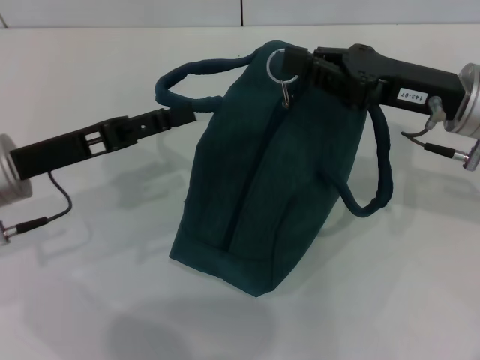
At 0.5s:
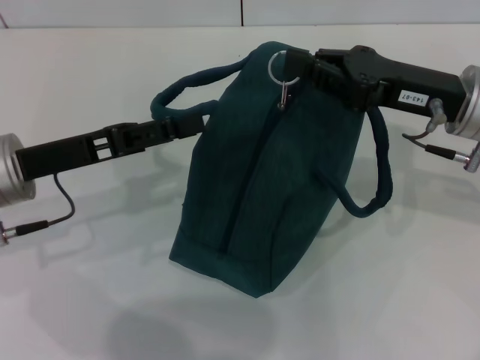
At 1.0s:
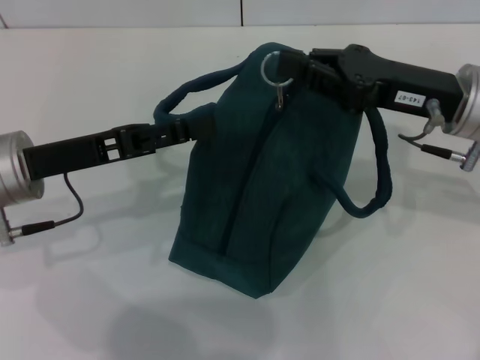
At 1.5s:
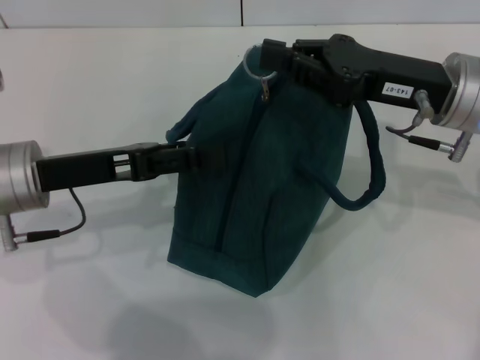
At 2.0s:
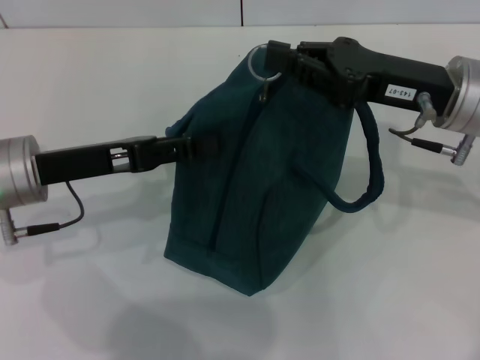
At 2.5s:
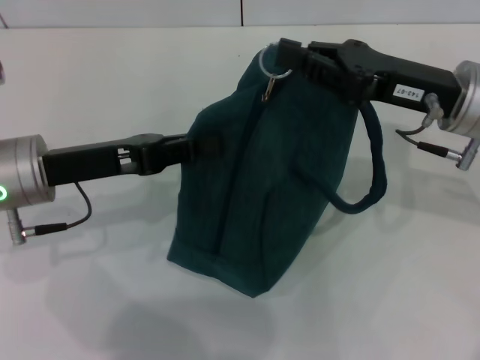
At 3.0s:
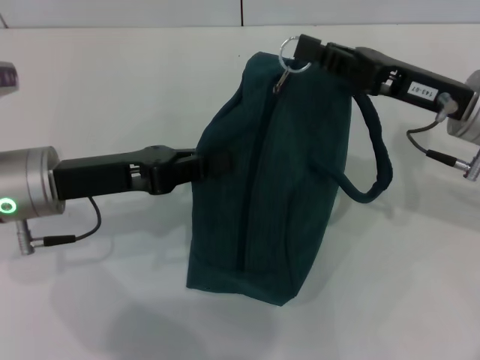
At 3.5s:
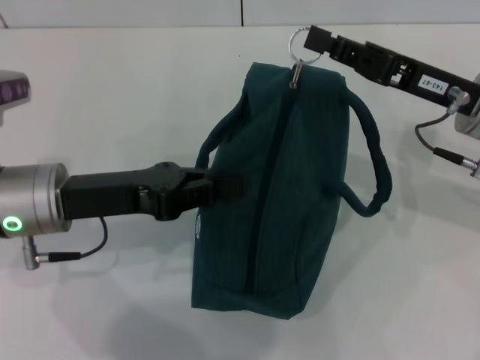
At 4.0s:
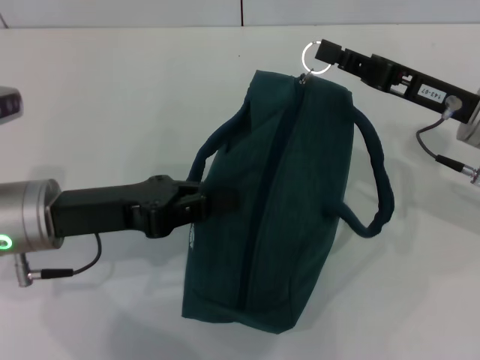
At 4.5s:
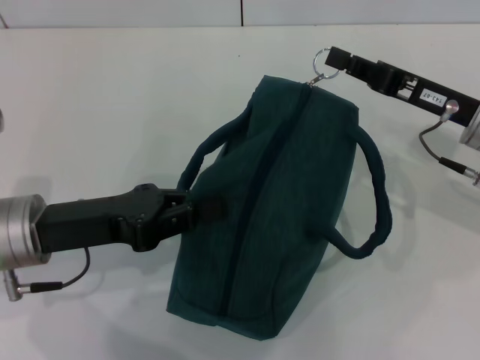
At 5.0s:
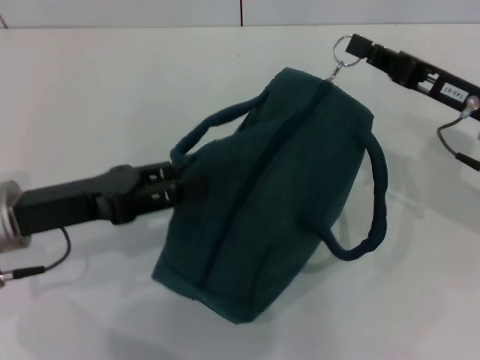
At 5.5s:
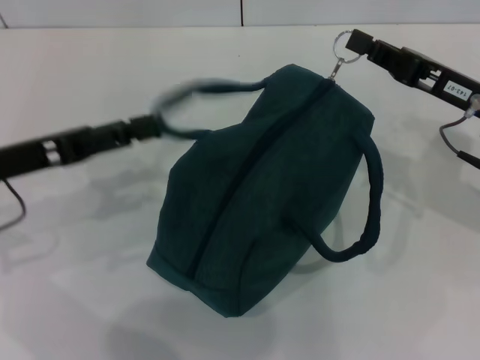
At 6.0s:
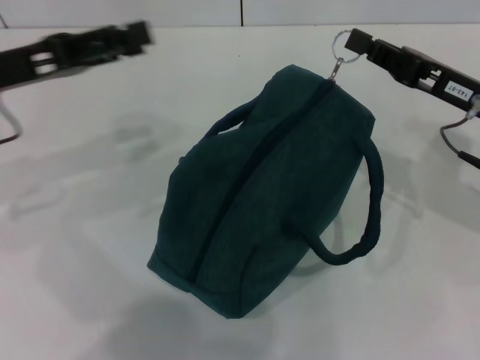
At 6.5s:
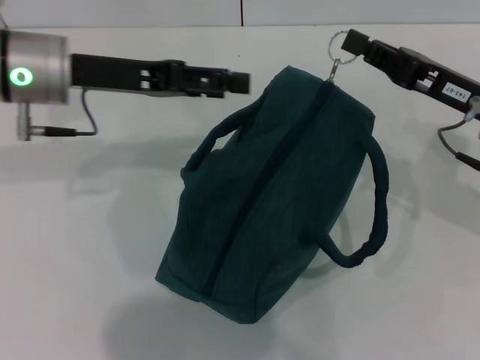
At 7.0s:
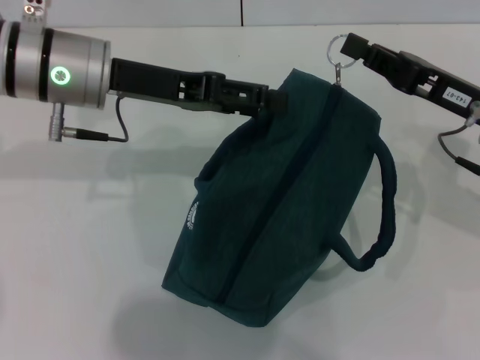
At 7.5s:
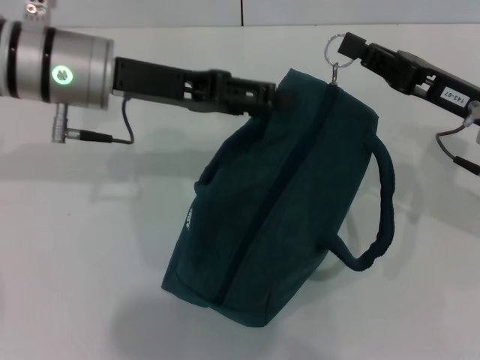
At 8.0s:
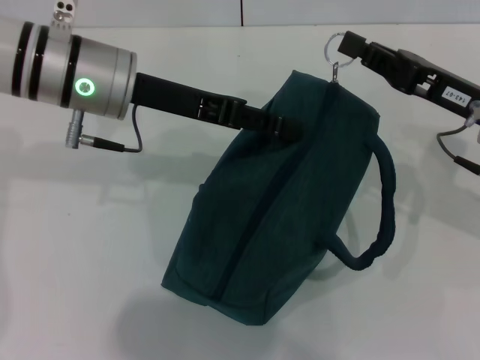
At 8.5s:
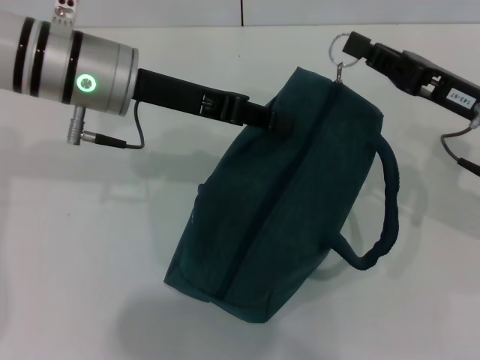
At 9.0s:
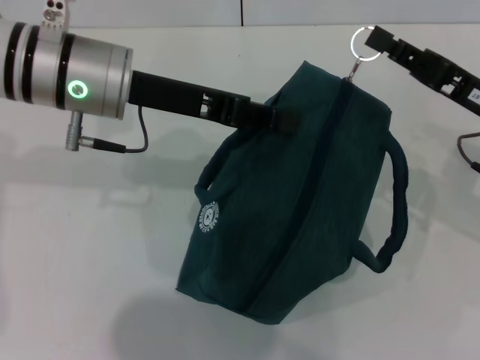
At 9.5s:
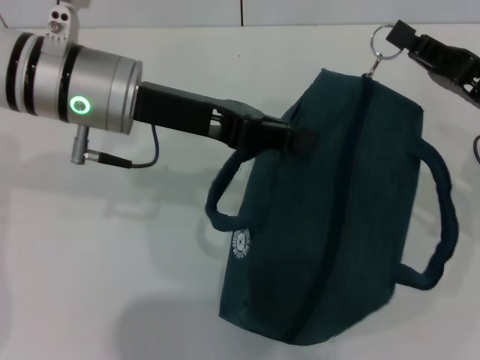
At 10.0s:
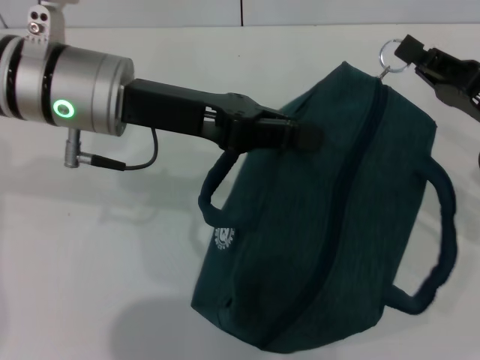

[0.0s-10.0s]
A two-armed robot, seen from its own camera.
0.0s to 2.0s: The grippers make only small movements.
2.0s to 4.0s: The right gripper moves some 5 cm, while the left gripper closes up.
4.0s to 6.0s: The left gripper is displaced upward, forward and to the left by approximately 10 cm, and opens up.
6.0s to 8.0s: The left gripper travels to the right by about 10 cm.
8.0s to 10.0s: The left gripper closes its fingers.

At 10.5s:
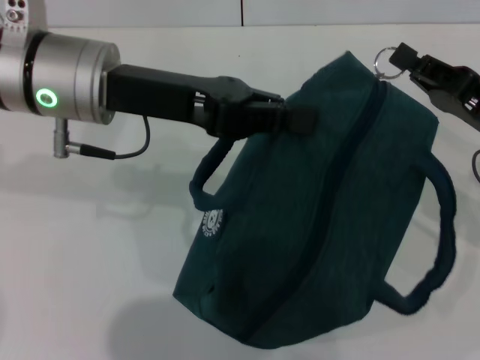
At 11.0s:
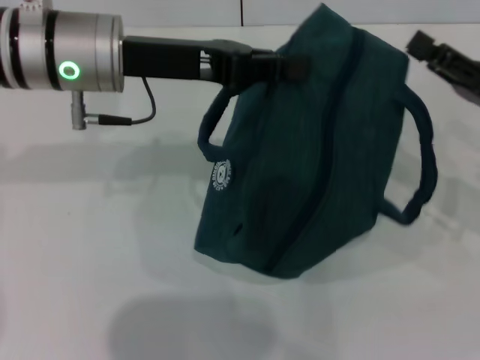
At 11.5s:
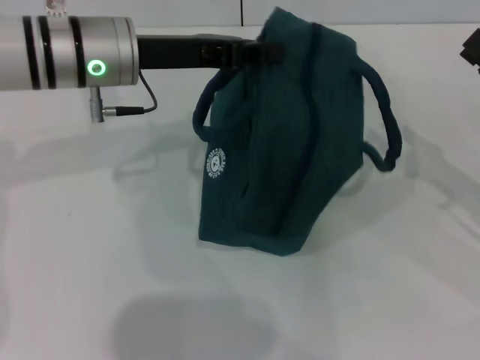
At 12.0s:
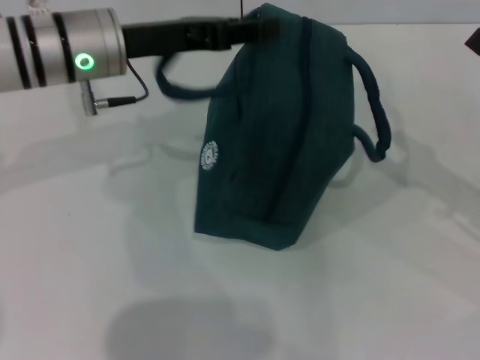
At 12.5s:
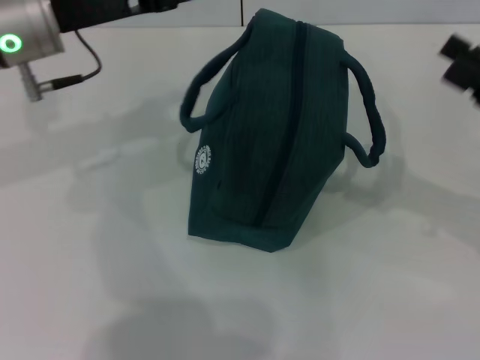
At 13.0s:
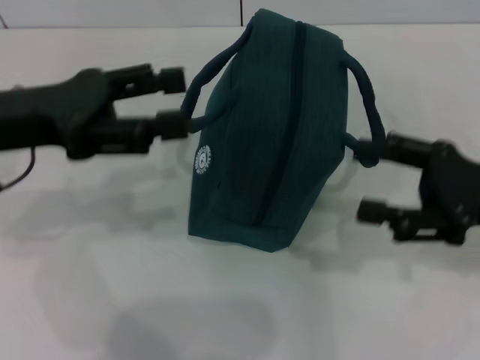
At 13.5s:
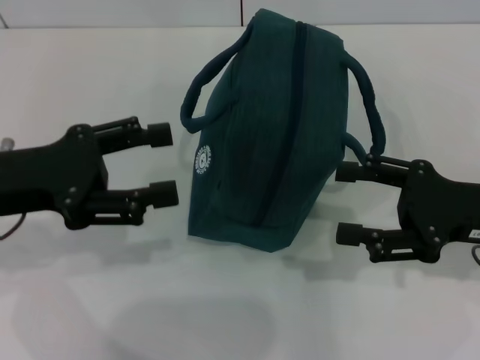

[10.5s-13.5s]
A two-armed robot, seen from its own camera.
Step, 11.0s to 12.0s: Hold the lunch bag with your left hand.
10.5s to 12.0s: The left gripper moves forward, approximately 5 cm, while the right gripper heads to the right, covering about 5 cm, and opens up.
12.0s to 13.5s: The right gripper moves to the left, roughly 5 cm, while the left gripper goes some 15 cm backward and to the left, and opens its fingers.
